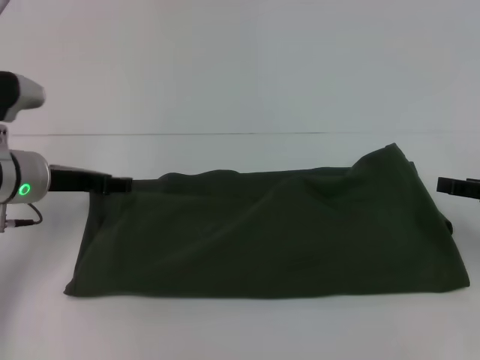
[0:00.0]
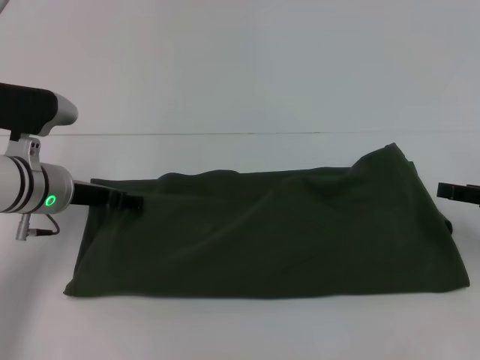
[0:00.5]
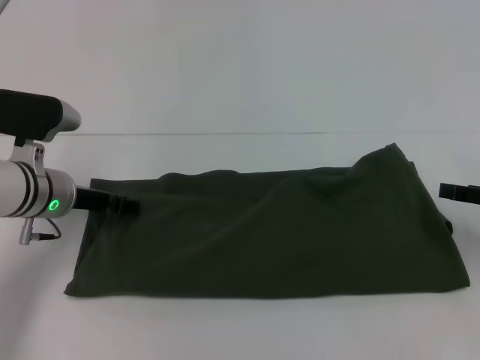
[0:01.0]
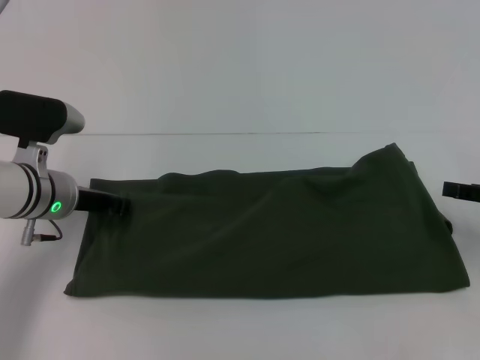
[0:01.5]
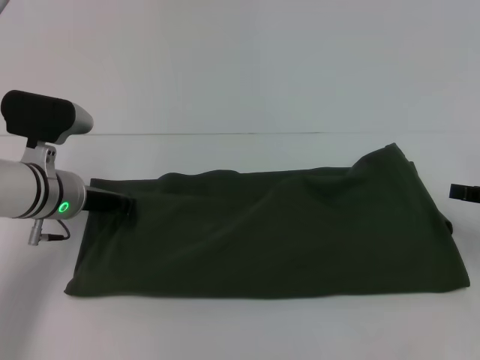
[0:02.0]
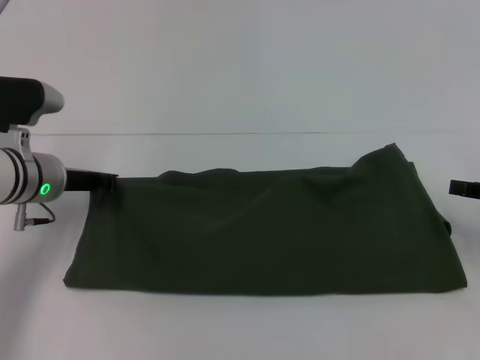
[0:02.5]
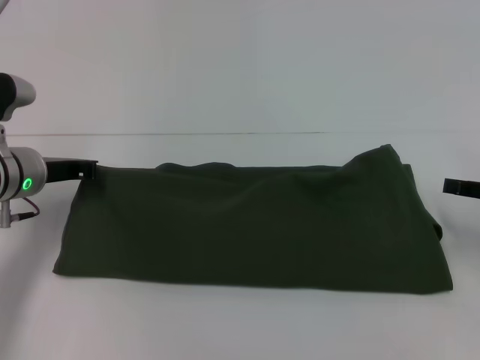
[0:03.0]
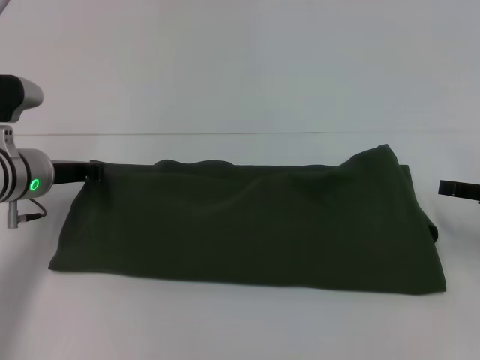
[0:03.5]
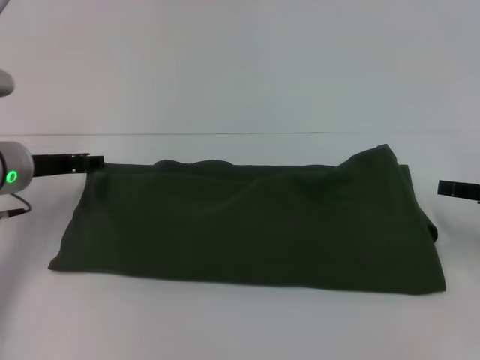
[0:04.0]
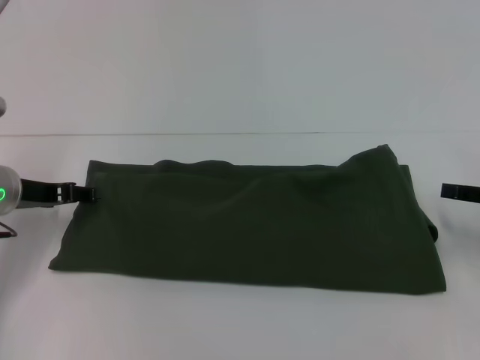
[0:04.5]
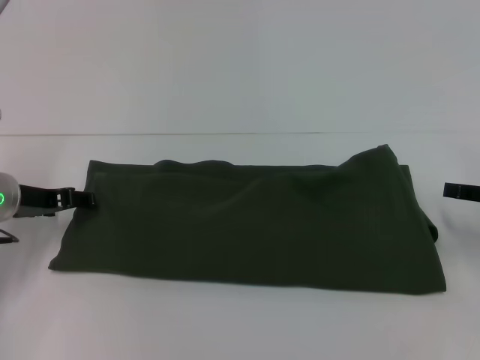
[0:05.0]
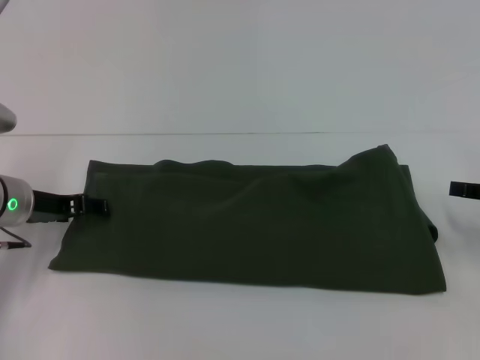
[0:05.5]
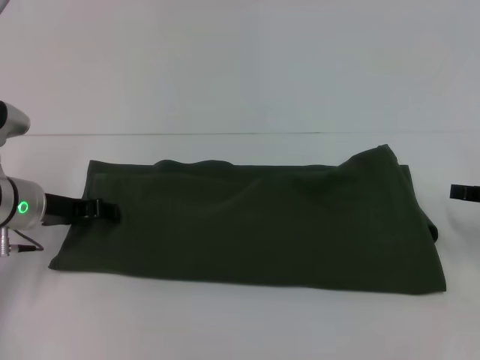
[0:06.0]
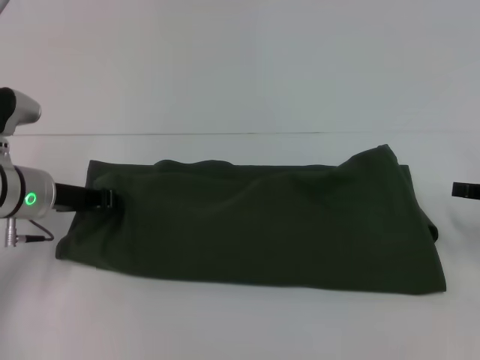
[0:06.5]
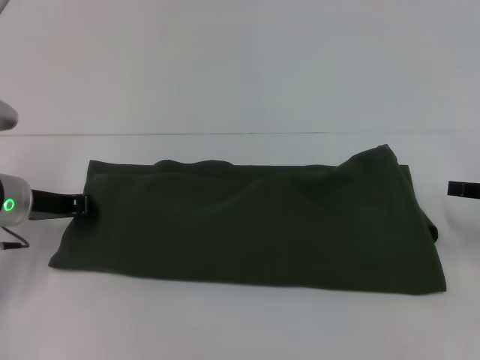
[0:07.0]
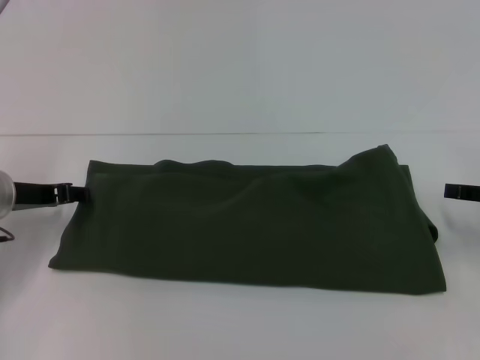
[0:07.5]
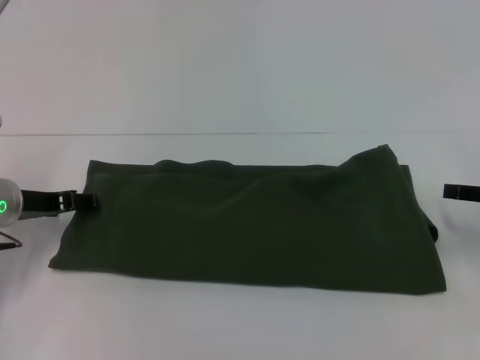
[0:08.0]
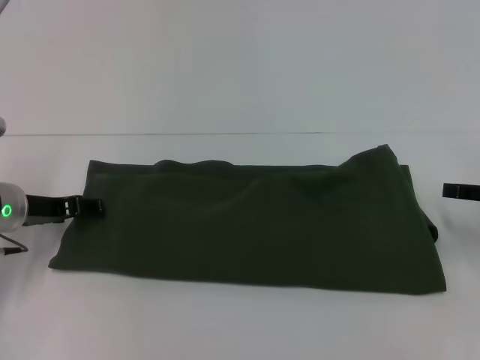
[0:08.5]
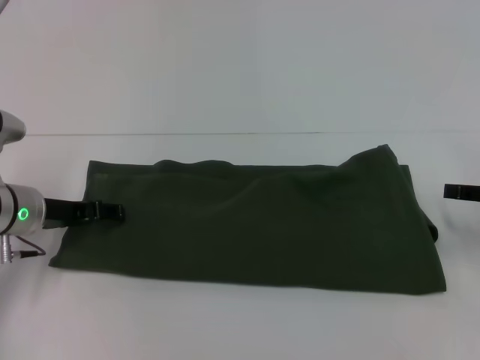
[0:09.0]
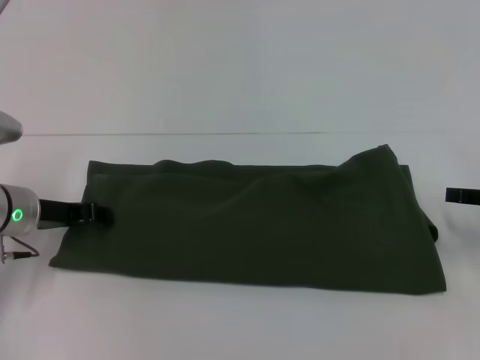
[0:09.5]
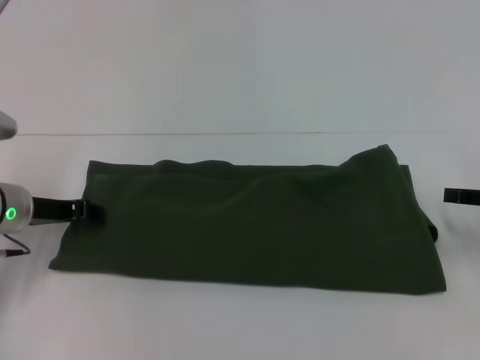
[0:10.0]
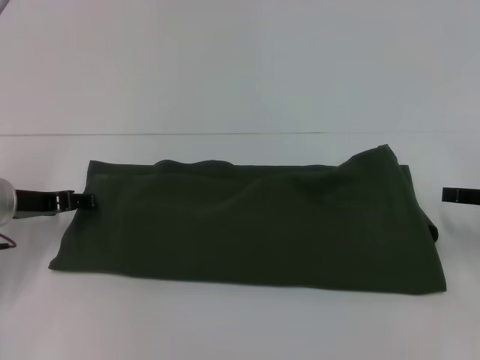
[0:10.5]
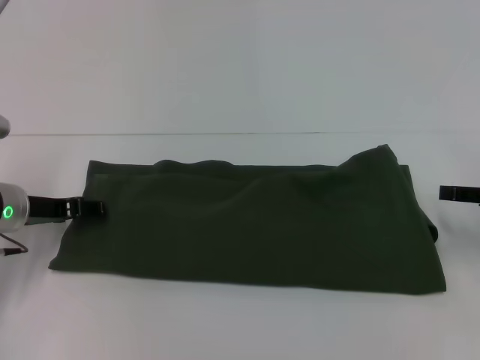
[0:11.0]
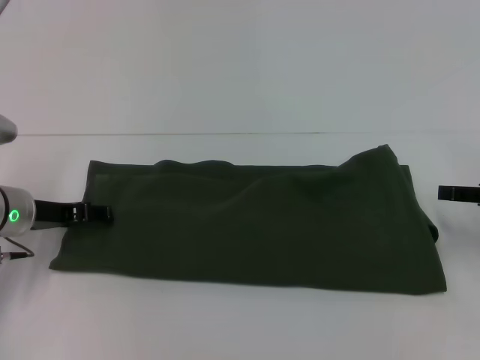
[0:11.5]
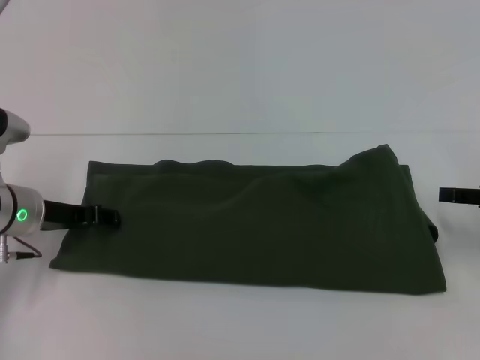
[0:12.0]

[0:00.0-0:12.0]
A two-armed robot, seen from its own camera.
0:00.0 to 0:02.0: The left gripper closes.
0:02.0 to 0:04.0: The left gripper changes place by some 5 cm.
0:04.0 to 0:06.0: The left gripper opens.
0:06.0 to 0:08.0: The left gripper closes, then reopens.
0:08.0 to 0:10.0: The left gripper closes its fingers.
0:10.0 to 0:12.0: The left gripper opens its fingers.

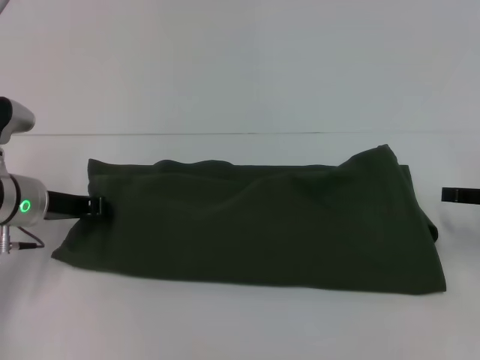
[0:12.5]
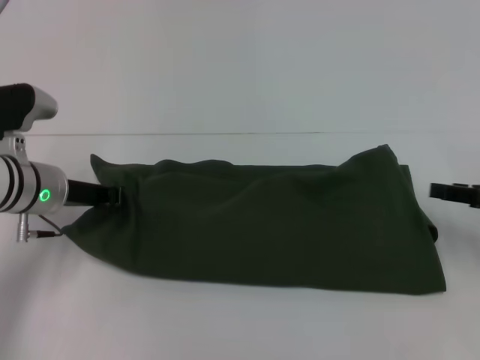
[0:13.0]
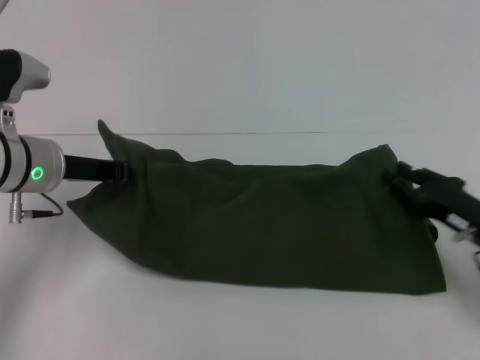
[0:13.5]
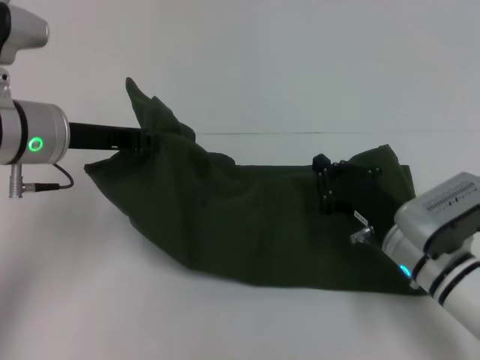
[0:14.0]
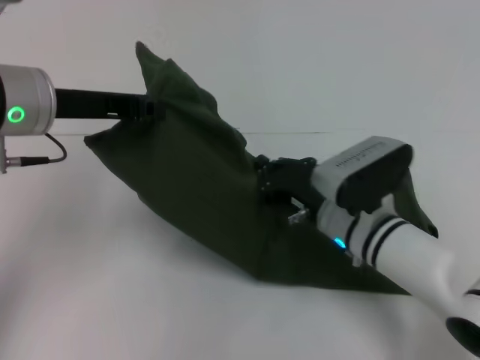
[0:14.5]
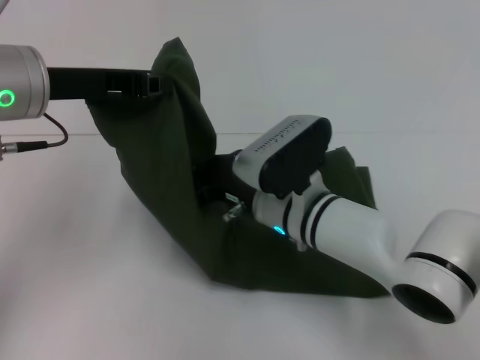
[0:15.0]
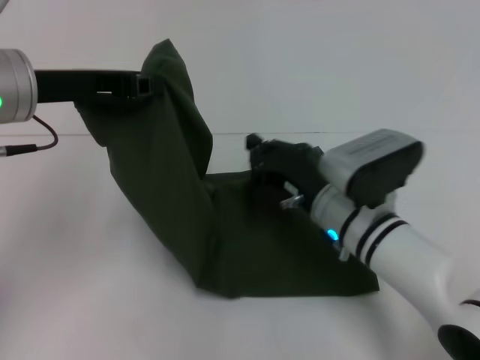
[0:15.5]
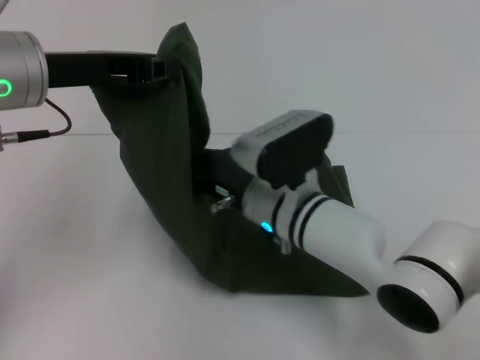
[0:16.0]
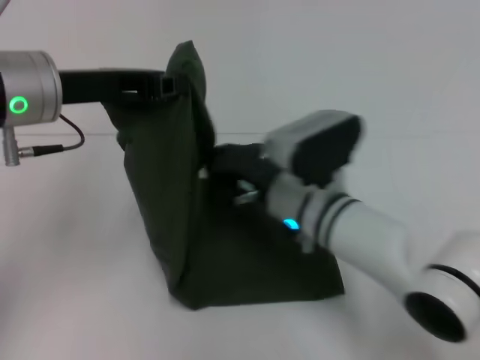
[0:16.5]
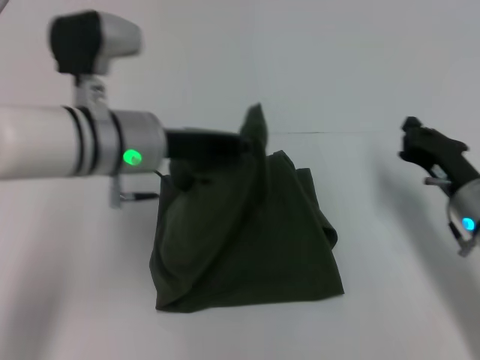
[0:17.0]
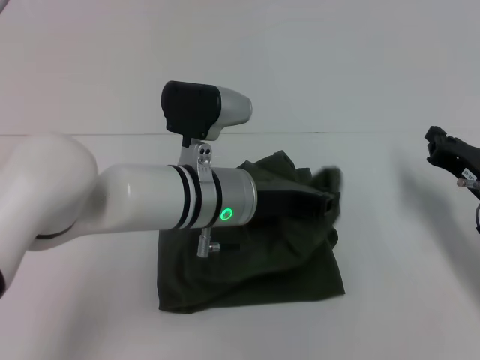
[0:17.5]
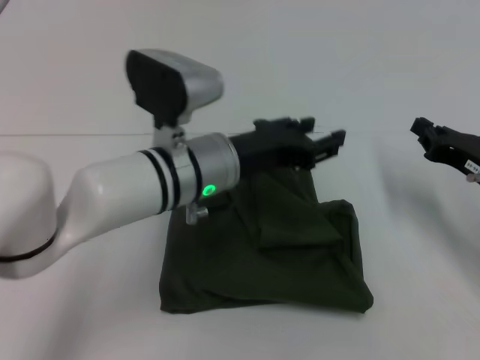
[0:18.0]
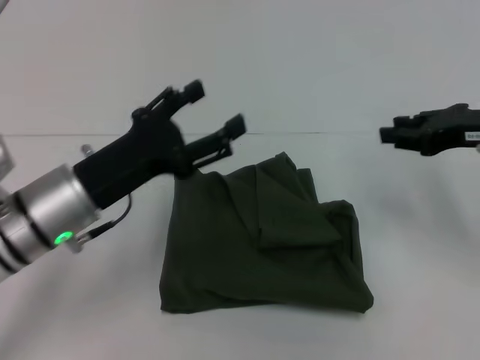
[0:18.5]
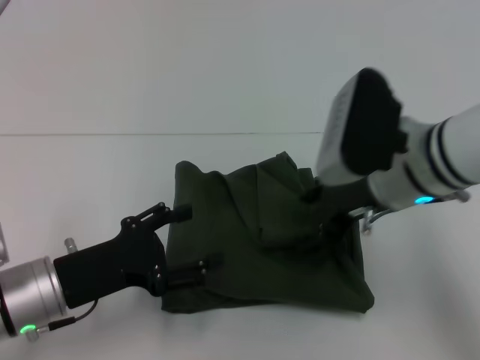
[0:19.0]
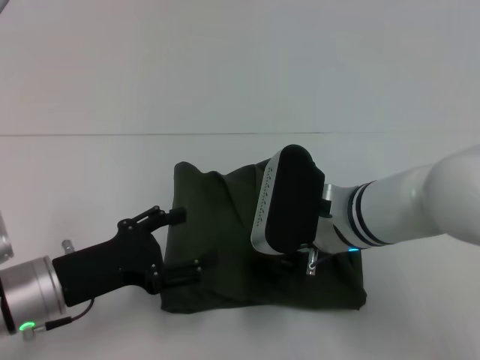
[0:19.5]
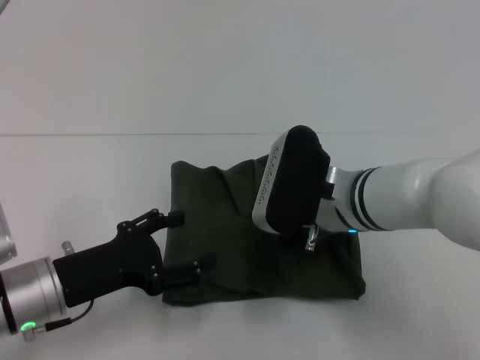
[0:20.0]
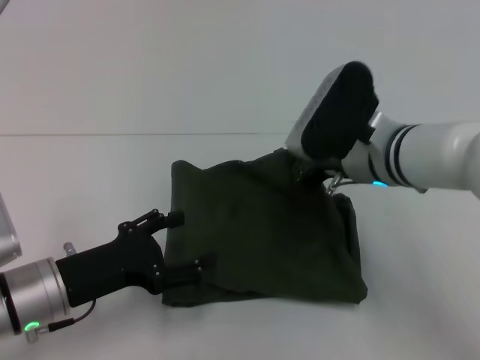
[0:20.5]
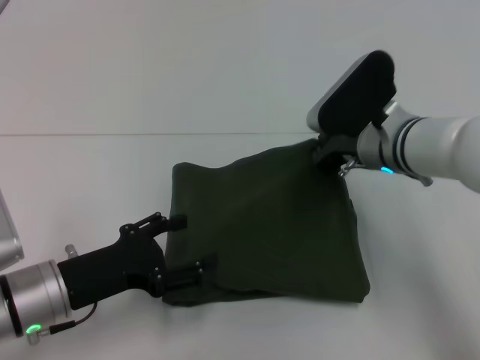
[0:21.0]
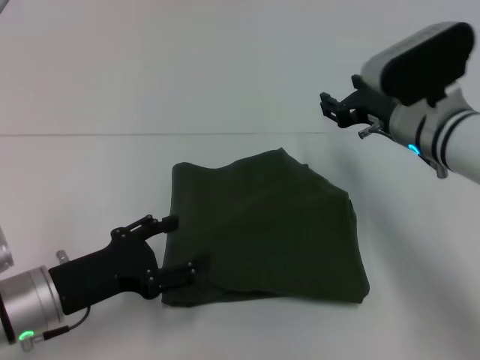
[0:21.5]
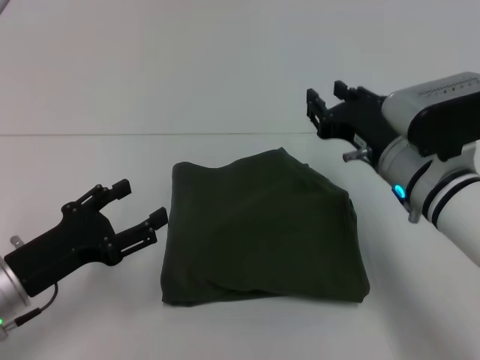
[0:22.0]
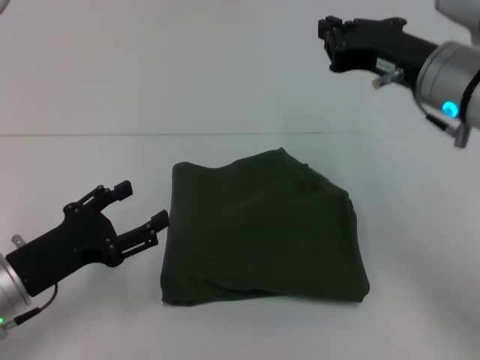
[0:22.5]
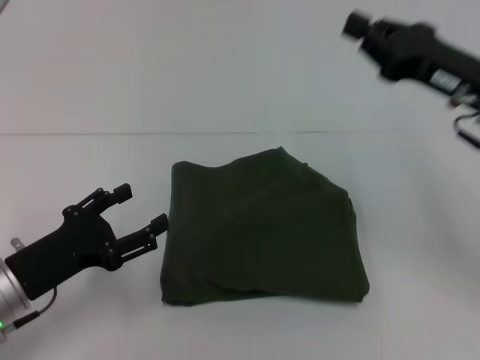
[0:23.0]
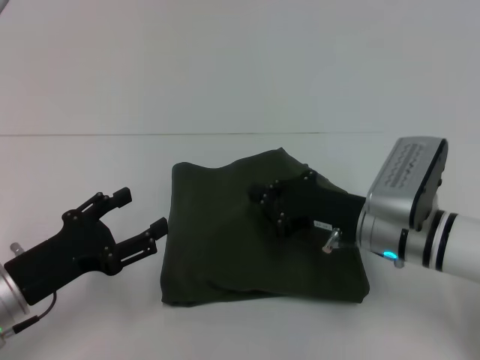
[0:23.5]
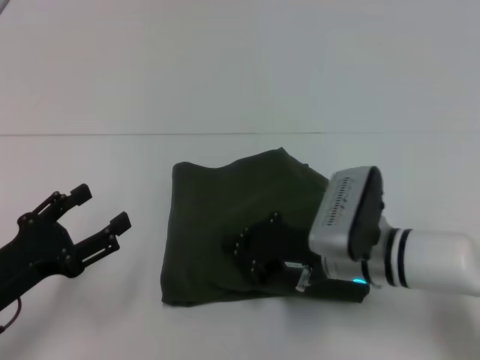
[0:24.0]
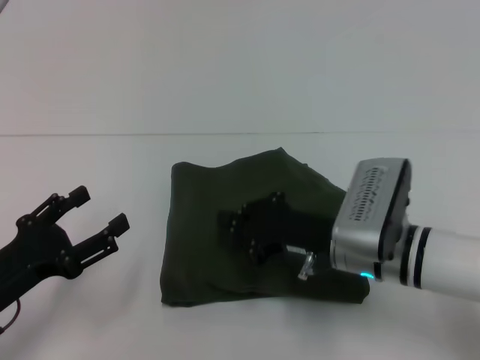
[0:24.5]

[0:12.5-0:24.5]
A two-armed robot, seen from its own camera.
Step, 0:12.5 to 0:17.5: Fold the clothes with your left hand.
0:12.5 to 0:14.5: The right gripper goes some 25 cm to the left, and closes up. The left gripper heads upward, covering about 15 cm, and closes up.
0:14.5 to 0:16.5: The right gripper moves left and right over roughly 10 cm, changing direction 2 times.
0:16.5 to 0:18.5: The right gripper is displaced to the right and upward by about 25 cm; the left gripper travels downward by roughly 10 cm, travels to the right and back again, some 15 cm each way, and opens its fingers.
0:18.5 to 0:20.5: The right gripper is displaced to the left by roughly 15 cm, and opens, then closes once more. Meanwhile the left gripper is displaced downward by some 5 cm.
0:20.5 to 0:22.5: The right gripper travels upward and to the right by approximately 10 cm, and opens, then closes again.
0:22.5 to 0:24.5: The right gripper heads downward, covering about 15 cm.

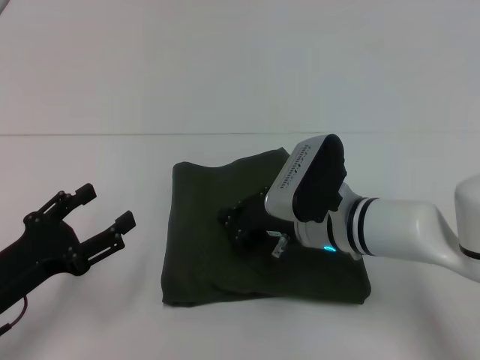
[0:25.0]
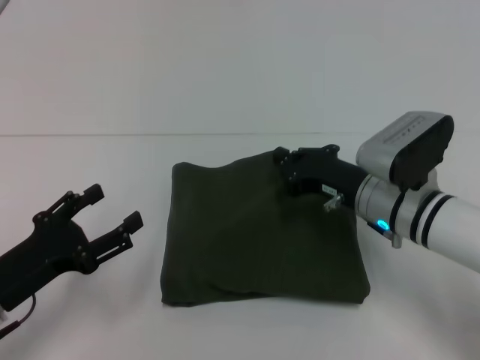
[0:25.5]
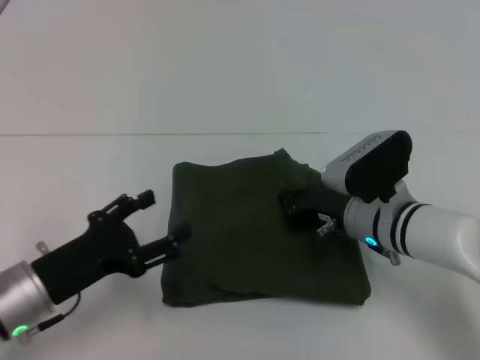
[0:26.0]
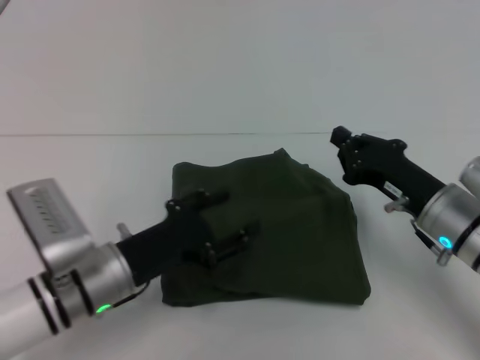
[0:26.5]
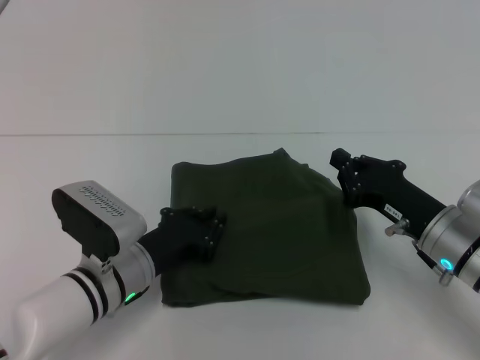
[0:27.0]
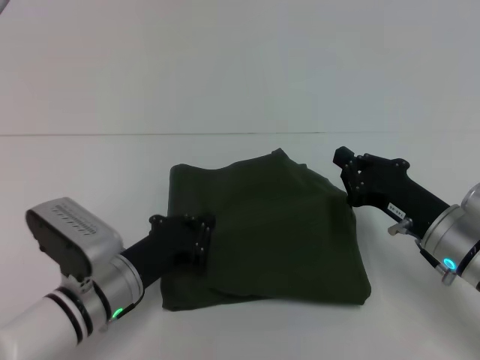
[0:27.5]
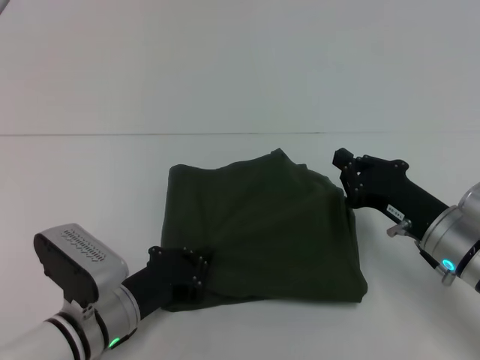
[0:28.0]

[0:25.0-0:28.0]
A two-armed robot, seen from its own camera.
0:25.0 to 0:26.5: The left gripper is displaced to the right and forward by roughly 10 cm; the right gripper moves to the right, roughly 10 cm.
0:26.5 to 0:28.0: The left gripper is displaced downward by some 5 cm, and closes its fingers.
